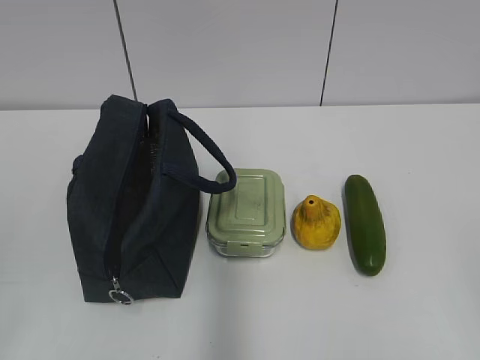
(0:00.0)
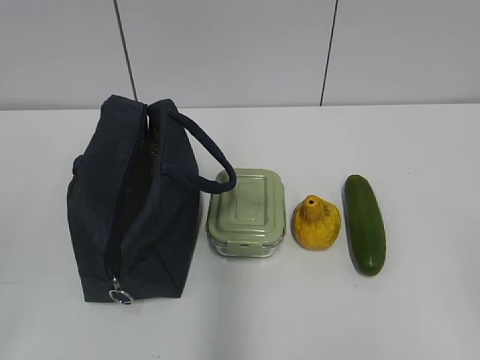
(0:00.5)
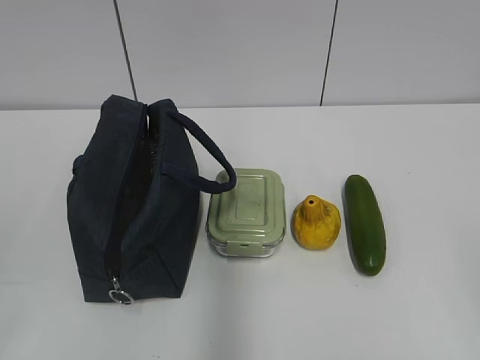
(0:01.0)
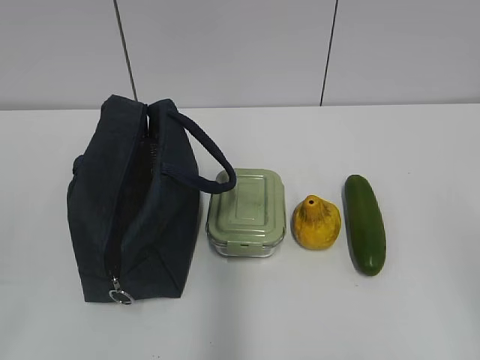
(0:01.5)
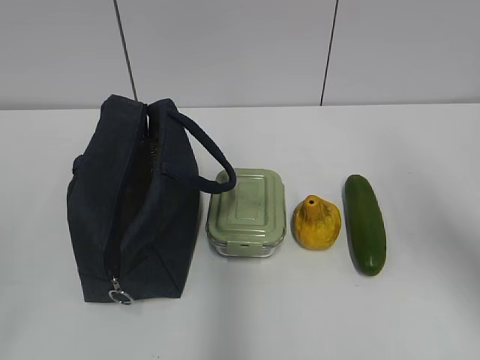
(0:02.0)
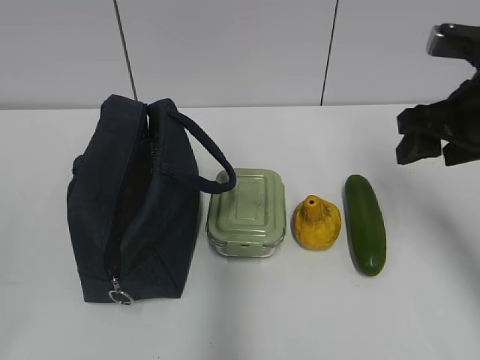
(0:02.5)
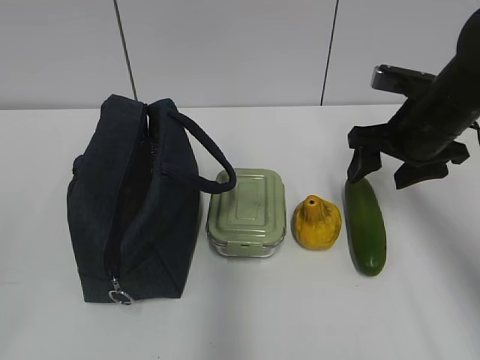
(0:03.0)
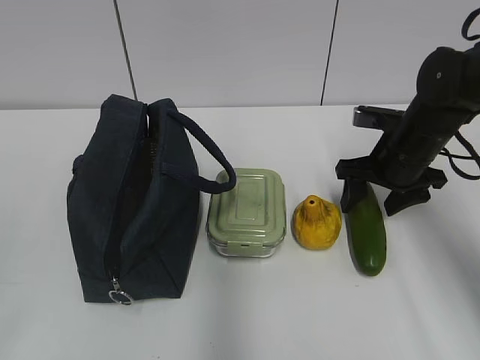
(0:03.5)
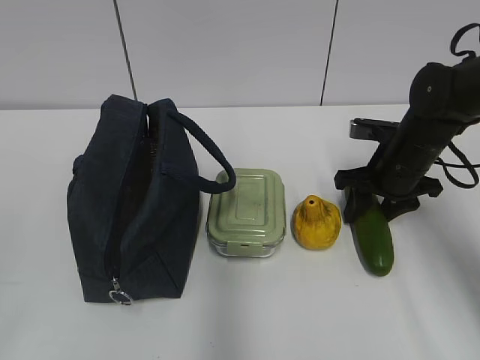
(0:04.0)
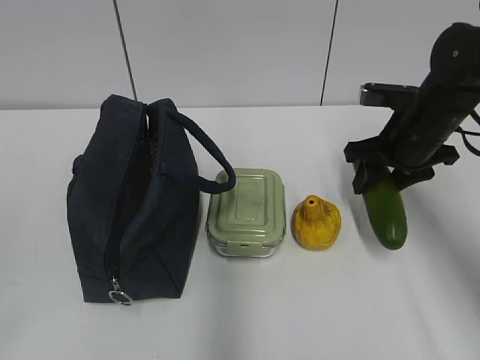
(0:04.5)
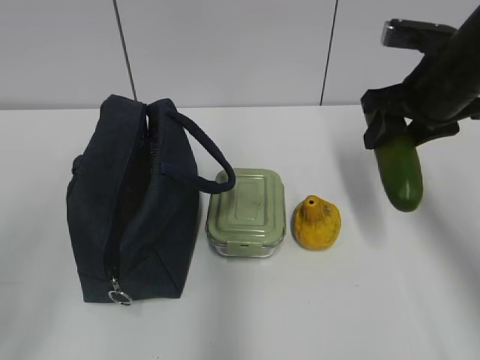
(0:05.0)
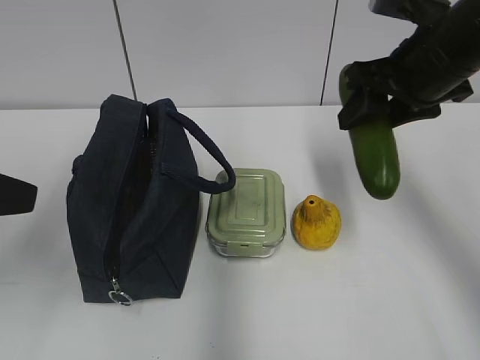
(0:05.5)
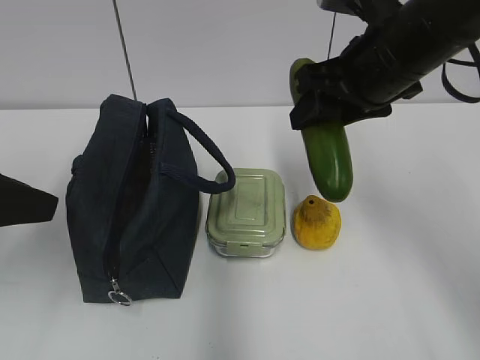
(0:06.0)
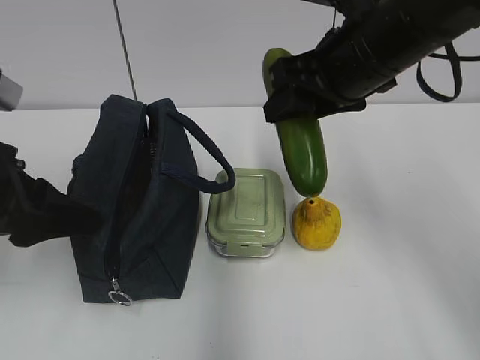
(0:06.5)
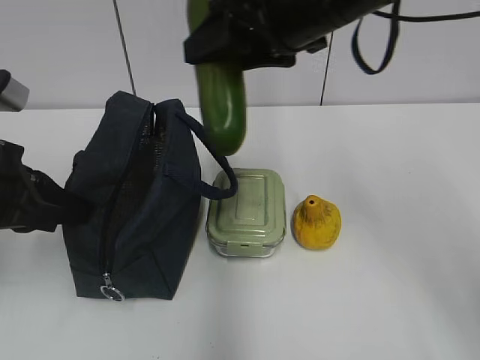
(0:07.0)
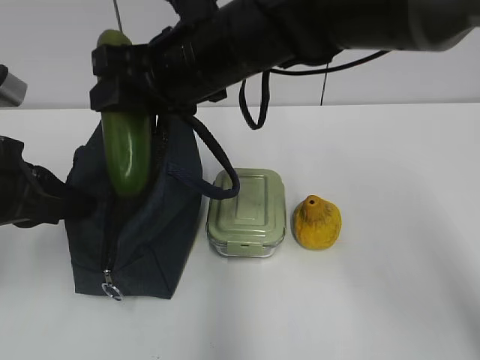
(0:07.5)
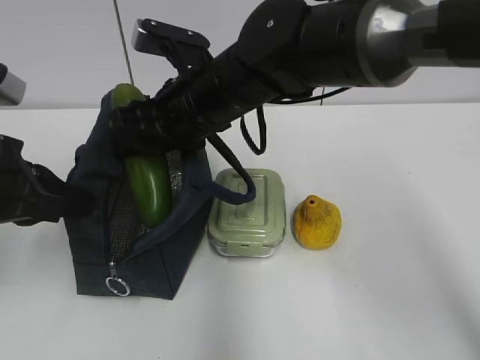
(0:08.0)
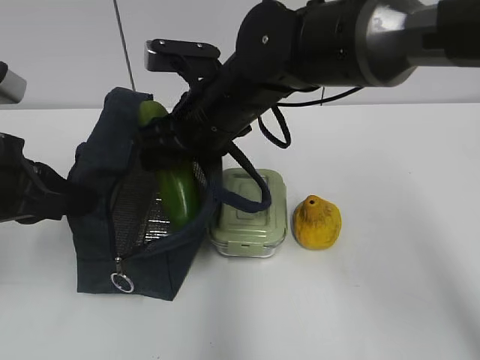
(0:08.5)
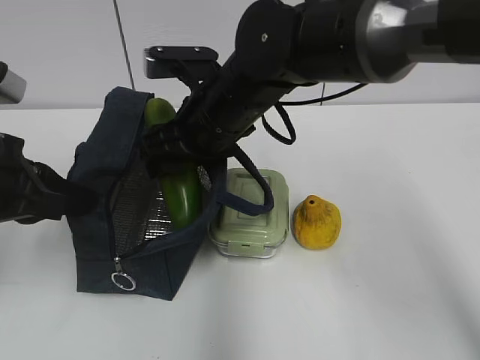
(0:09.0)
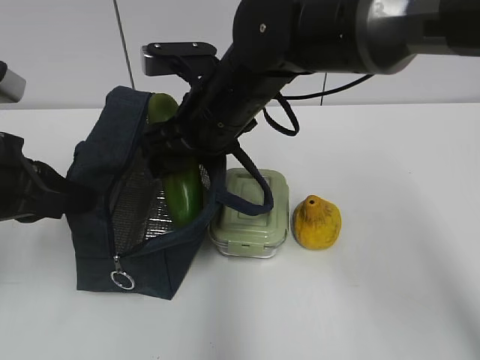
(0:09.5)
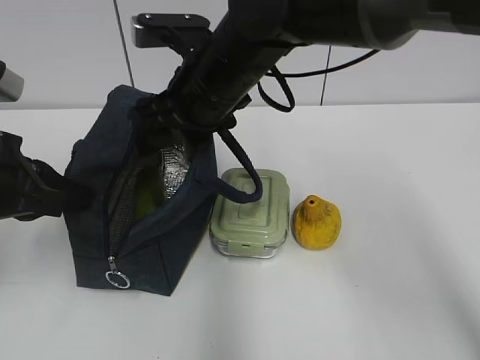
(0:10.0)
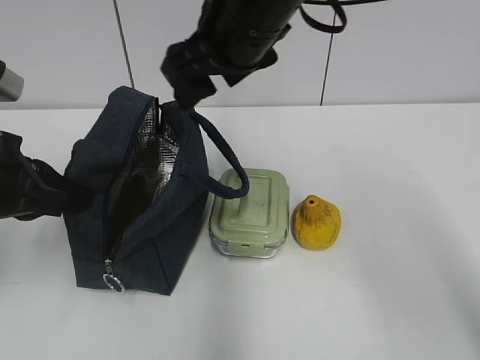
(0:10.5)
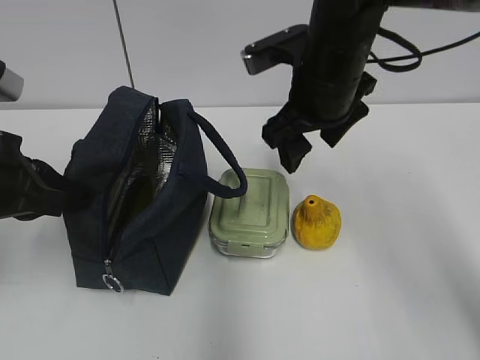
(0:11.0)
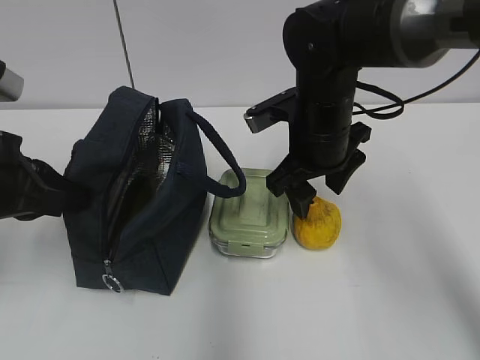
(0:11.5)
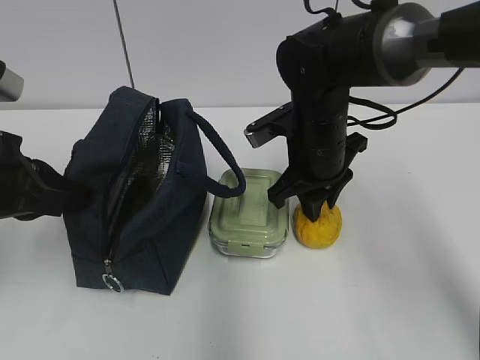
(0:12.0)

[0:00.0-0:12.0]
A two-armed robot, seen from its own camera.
0:02.0 to 0:04.0: The right gripper heads forward and downward, covering approximately 25 cm.
0:04.0 to 0:06.0: The right gripper heads upward and to the left, covering approximately 20 cm. The left gripper moves forward, approximately 20 cm, and opens its fingers.
0:06.0 to 0:08.0: The left gripper changes place by some 5 cm, and closes. Meanwhile the right gripper shifts approximately 15 cm to the left.
0:08.0 to 0:10.0: There are only small adjustments of the grippers.
0:10.0 to 0:12.0: The right gripper goes approximately 15 cm to the right and downward, and closes.

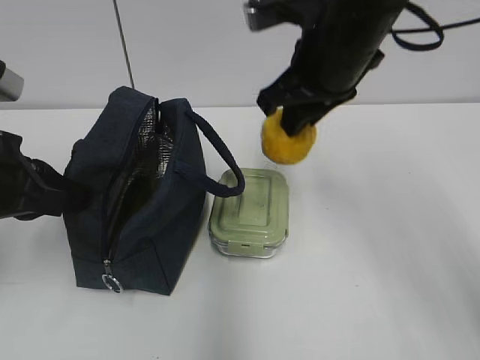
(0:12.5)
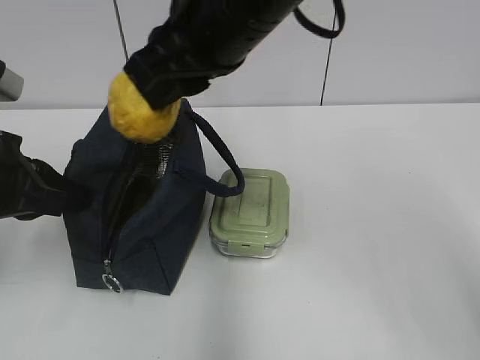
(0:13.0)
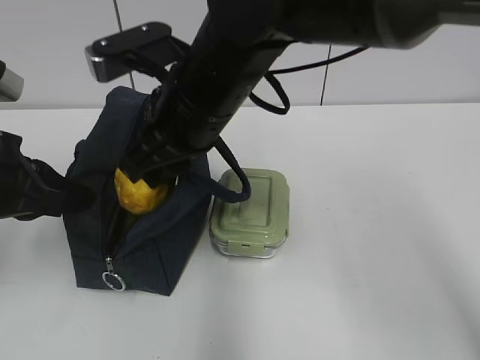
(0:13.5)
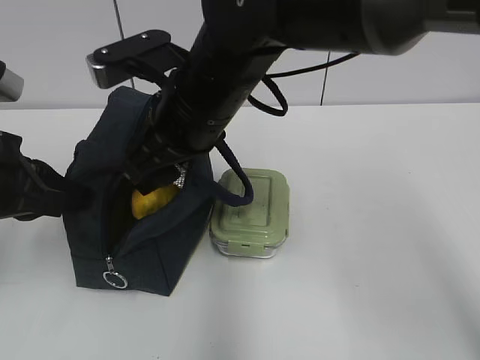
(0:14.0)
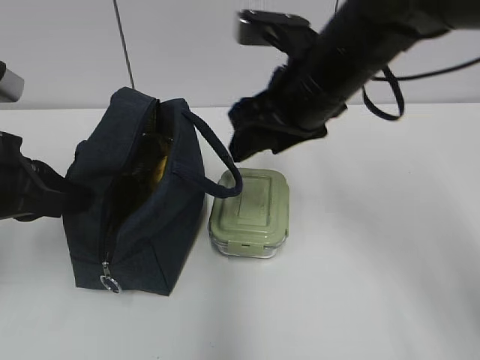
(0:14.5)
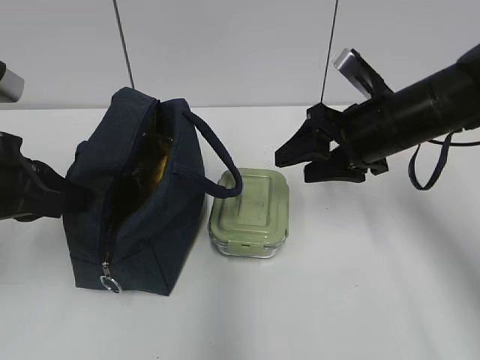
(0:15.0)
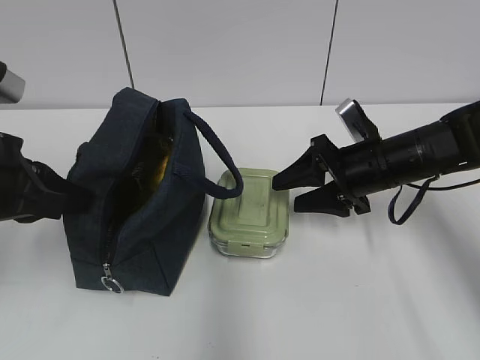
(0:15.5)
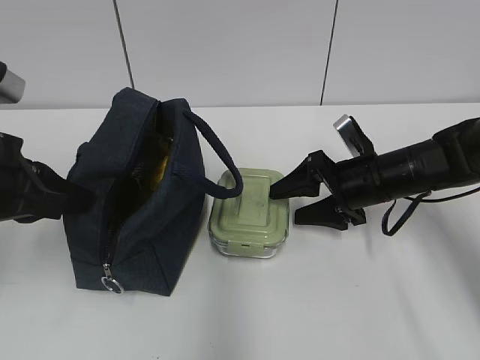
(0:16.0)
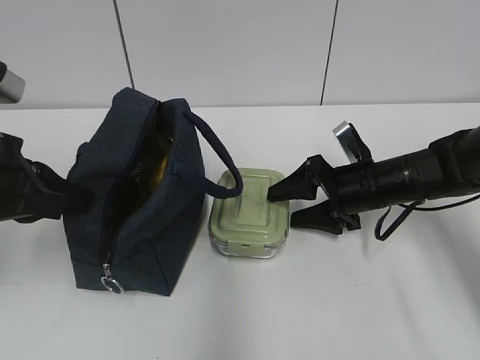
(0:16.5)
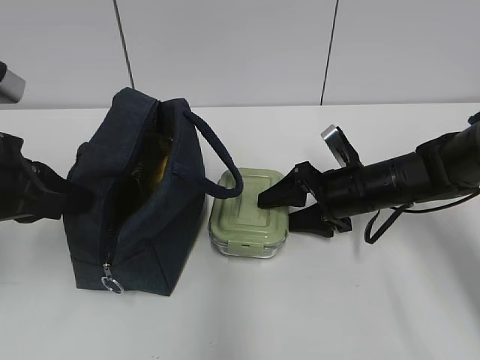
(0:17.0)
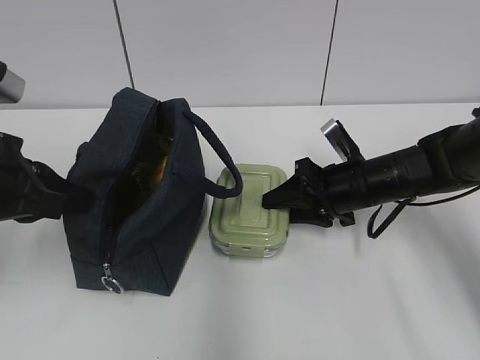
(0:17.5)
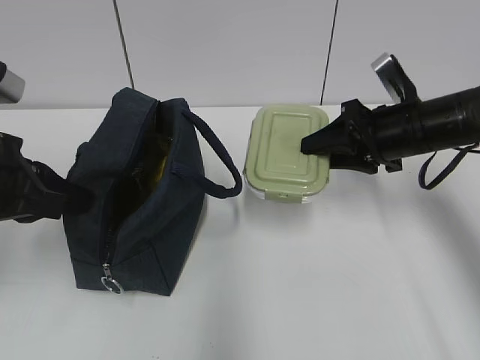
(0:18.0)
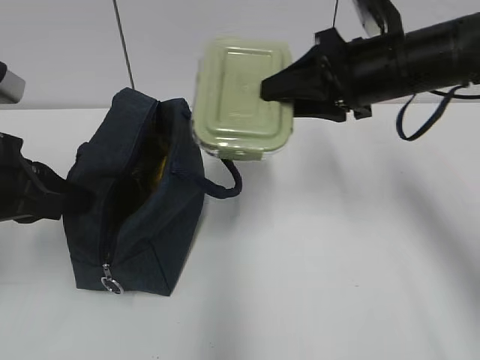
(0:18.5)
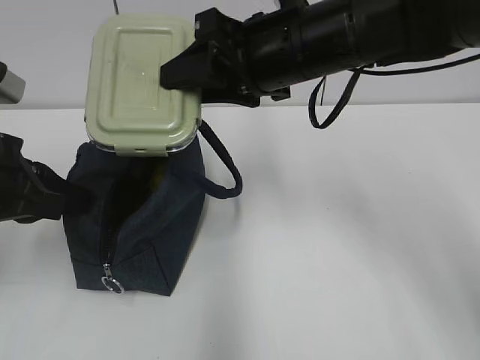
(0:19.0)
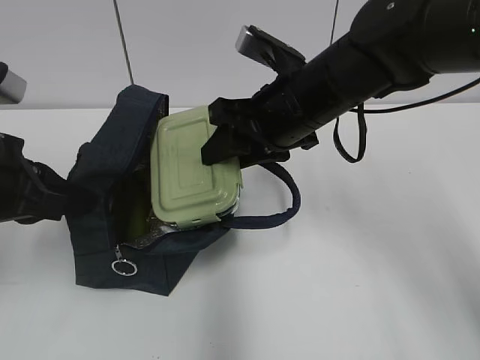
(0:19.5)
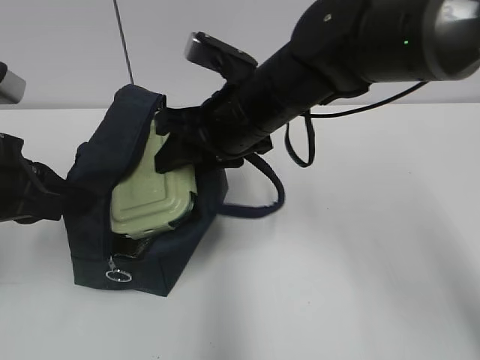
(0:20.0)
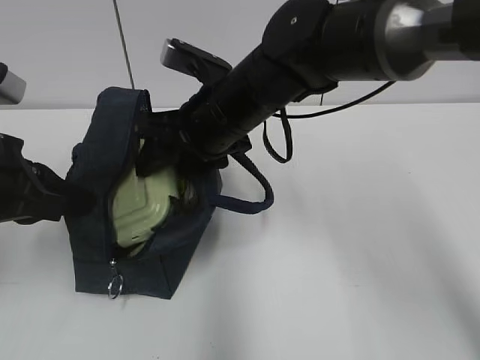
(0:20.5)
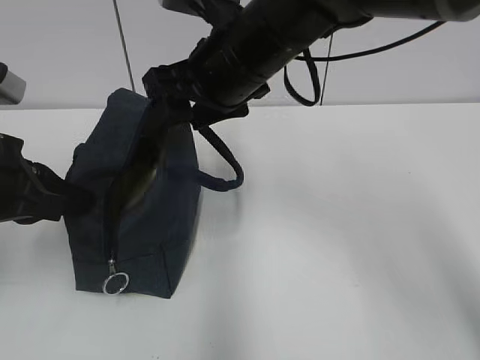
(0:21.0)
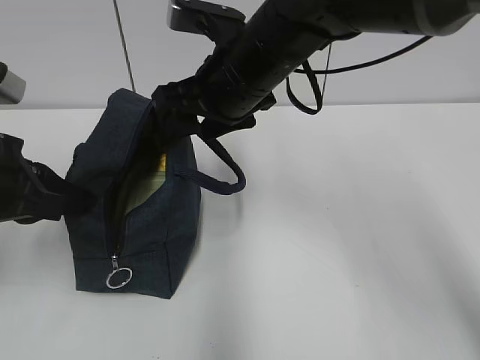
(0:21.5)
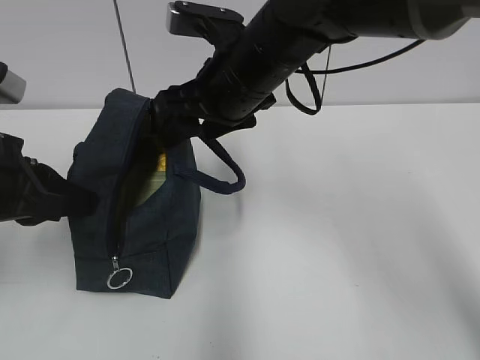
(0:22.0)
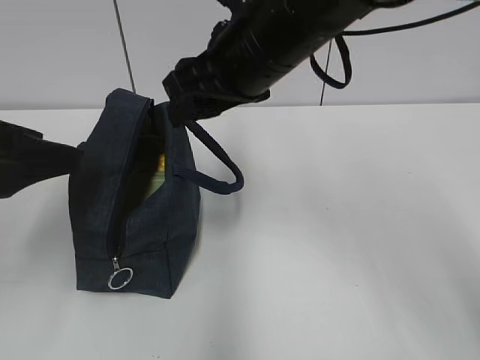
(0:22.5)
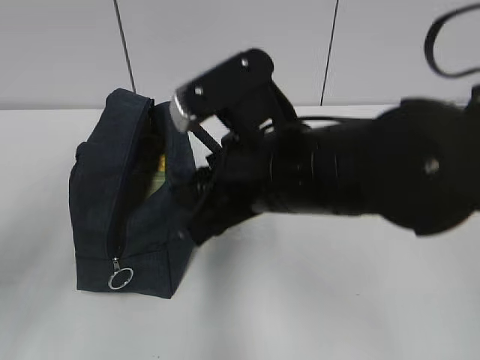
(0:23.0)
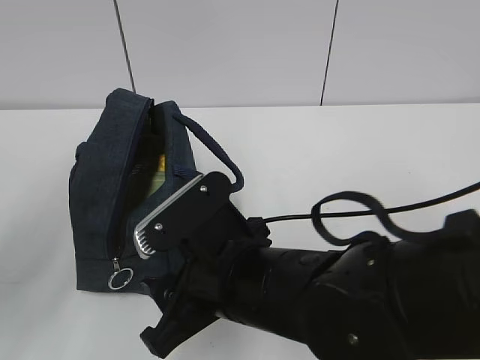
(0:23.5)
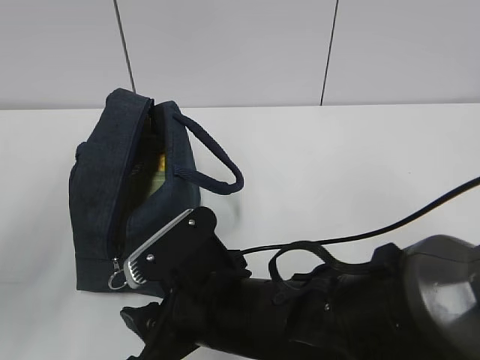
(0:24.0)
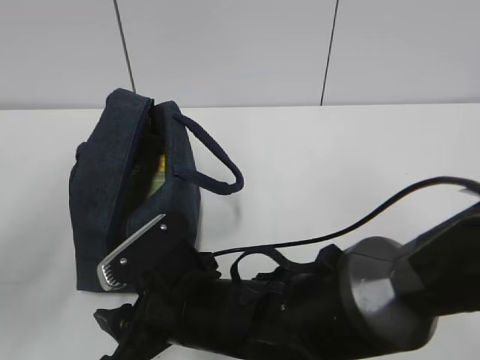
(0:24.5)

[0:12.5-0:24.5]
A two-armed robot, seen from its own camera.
0:12.5 to 0:14.5: The right gripper travels to the left and back again, roughly 10 cm each way, and opens its fingers.
0:14.5 to 0:16.5: The right gripper goes some 20 cm downward and to the right.
0:16.5 to 0:18.5: The right gripper moves upward, some 15 cm, and closes its fingers.
0:18.5 to 0:20.5: The right gripper shifts approximately 15 cm to the left.
0:20.5 to 0:22.5: The right gripper heads upward, covering approximately 5 cm; the left gripper ends up approximately 5 cm from where it was, and opens.
0:22.5 to 0:24.5: The left gripper is displaced backward by approximately 10 cm, while the right gripper travels downward and backward by roughly 25 cm.

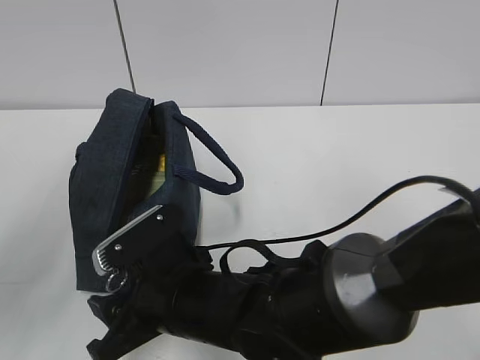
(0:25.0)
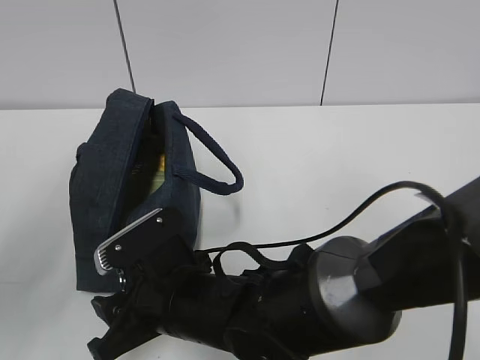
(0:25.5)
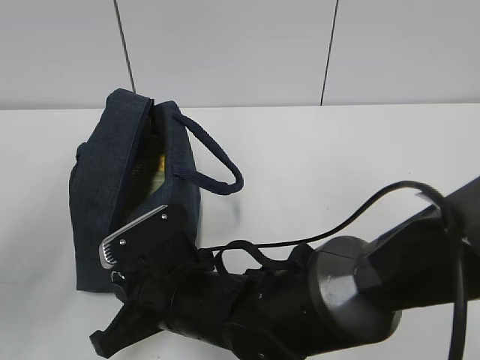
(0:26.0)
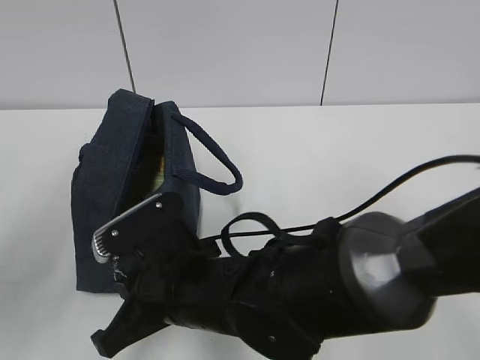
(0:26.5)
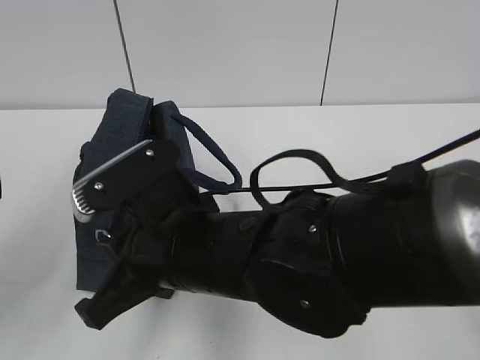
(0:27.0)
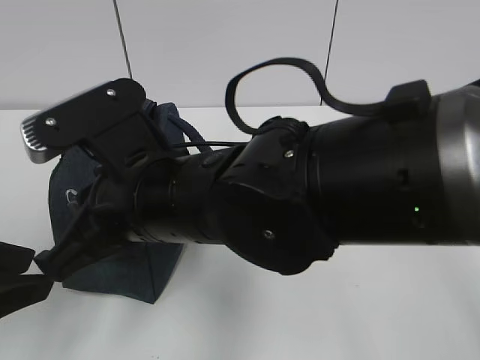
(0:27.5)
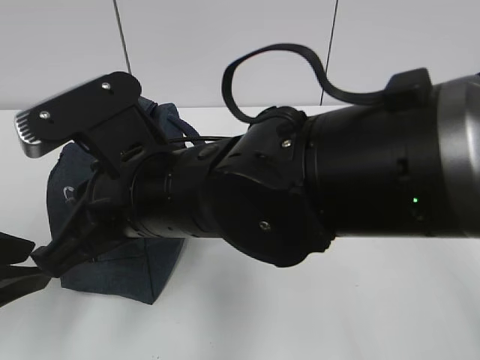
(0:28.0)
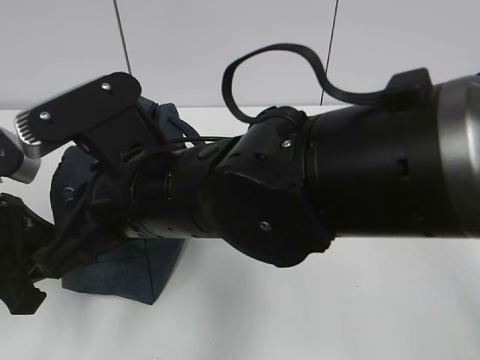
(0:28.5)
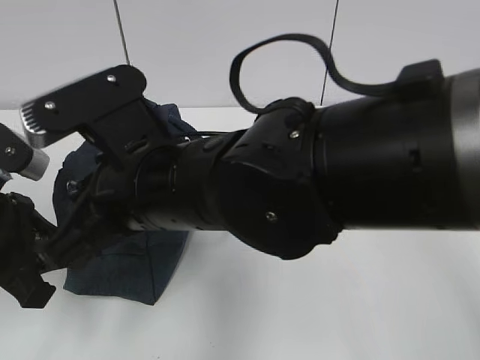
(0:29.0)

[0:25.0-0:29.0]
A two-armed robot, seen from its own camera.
0:25.0 to 0:27.0: The right gripper shifts about 10 cm upward, and closes its fingers.
0:27.0 to 0:29.0: The left gripper is displaced forward and downward by approximately 15 cm, and closes; the right gripper moves upward, approximately 5 cm.
